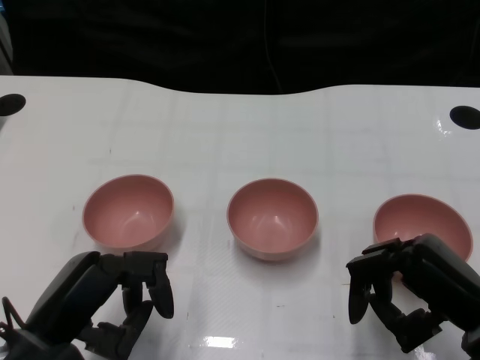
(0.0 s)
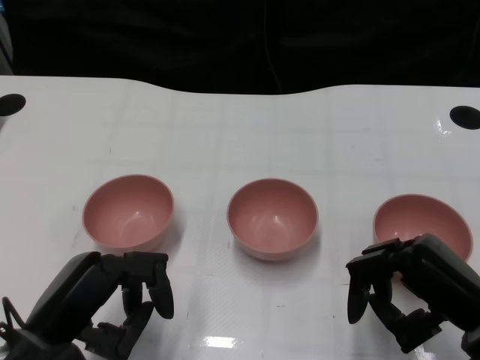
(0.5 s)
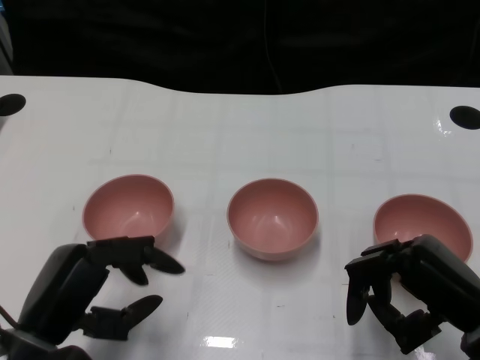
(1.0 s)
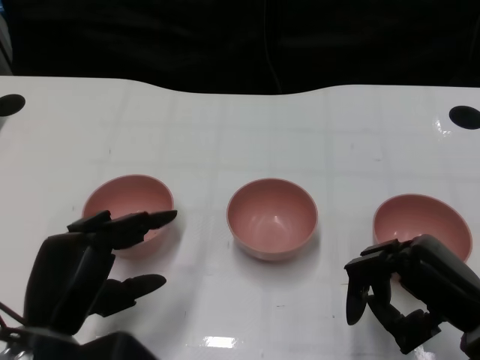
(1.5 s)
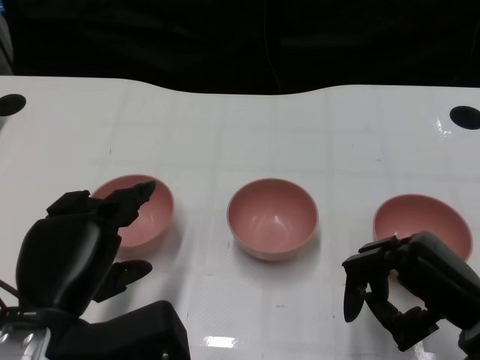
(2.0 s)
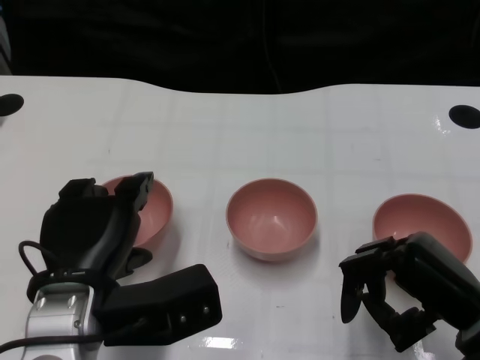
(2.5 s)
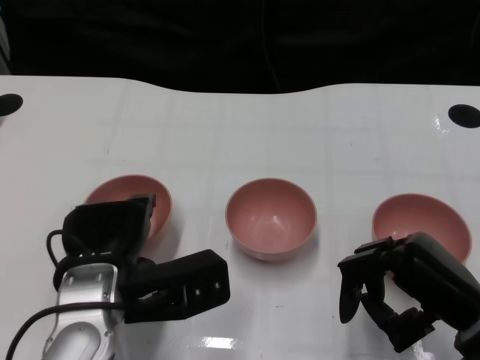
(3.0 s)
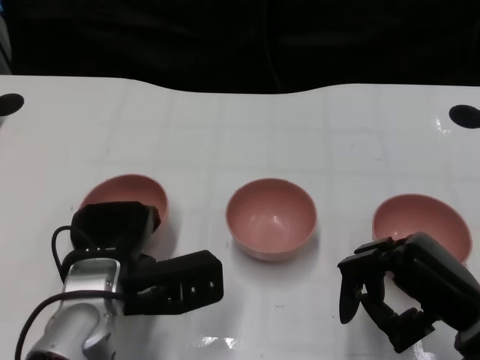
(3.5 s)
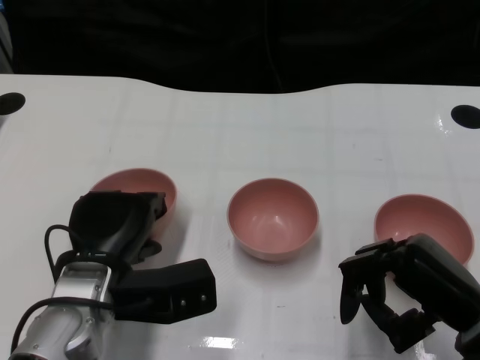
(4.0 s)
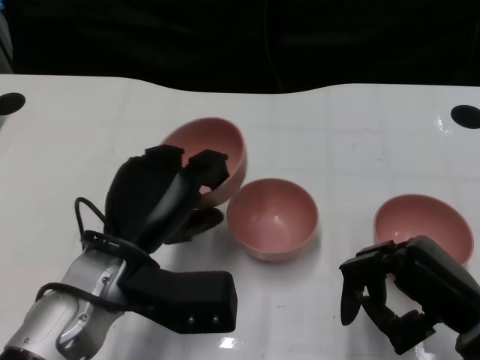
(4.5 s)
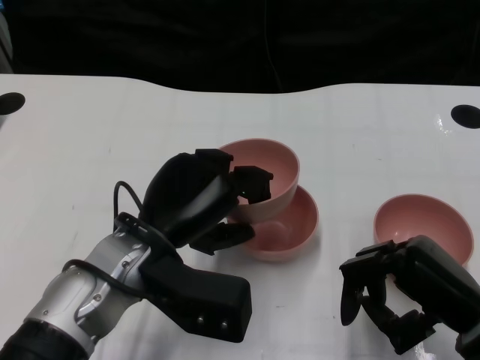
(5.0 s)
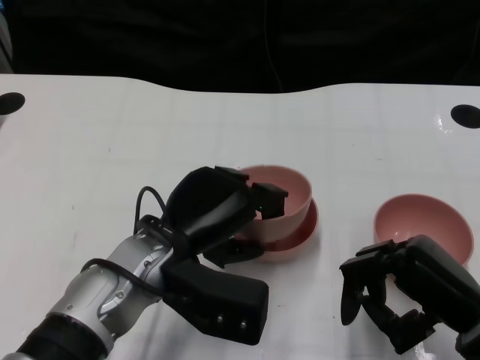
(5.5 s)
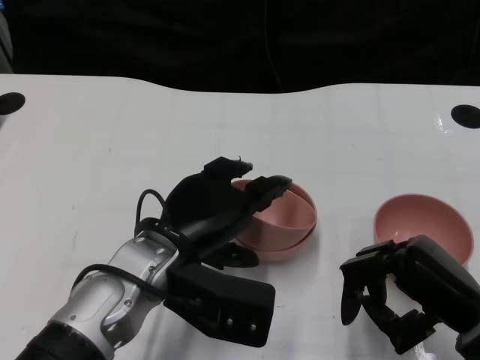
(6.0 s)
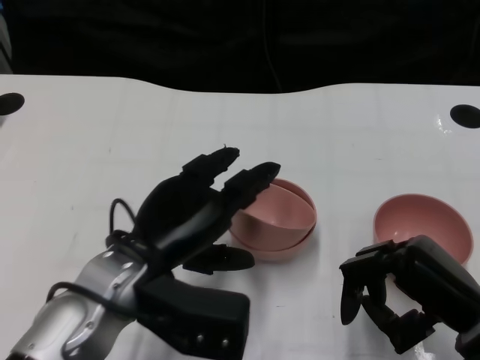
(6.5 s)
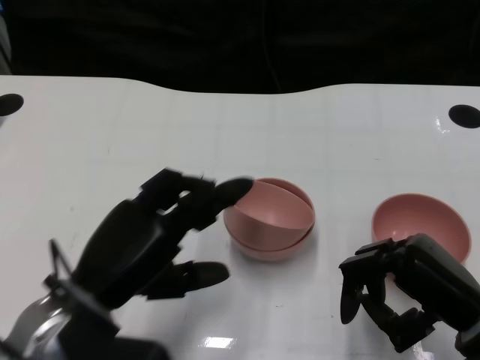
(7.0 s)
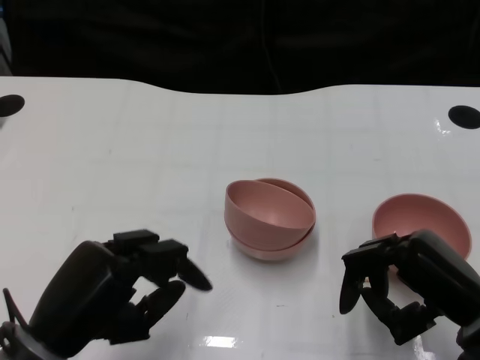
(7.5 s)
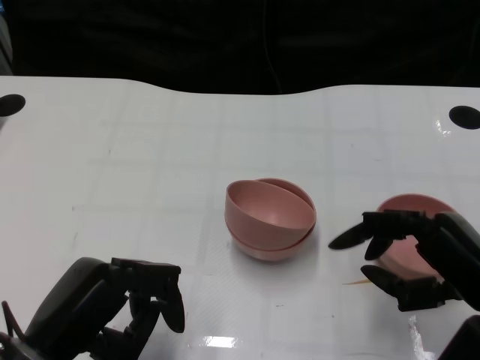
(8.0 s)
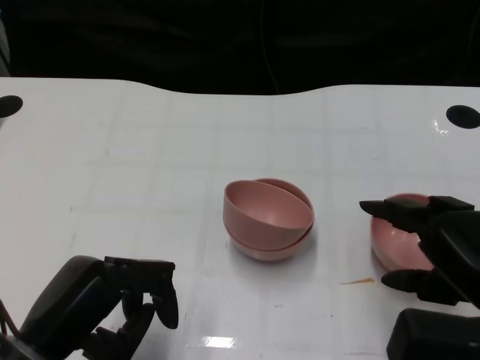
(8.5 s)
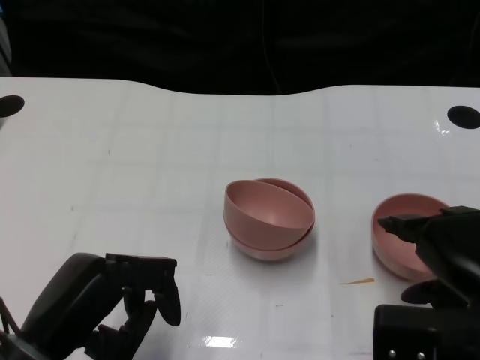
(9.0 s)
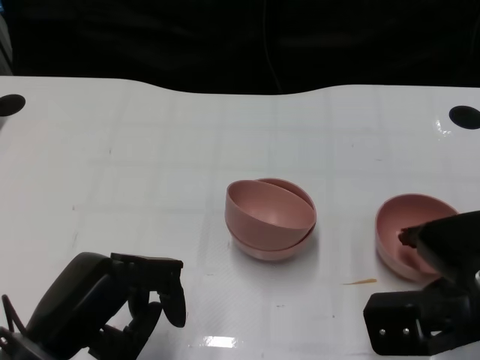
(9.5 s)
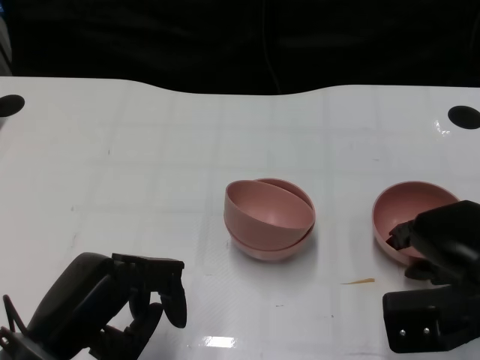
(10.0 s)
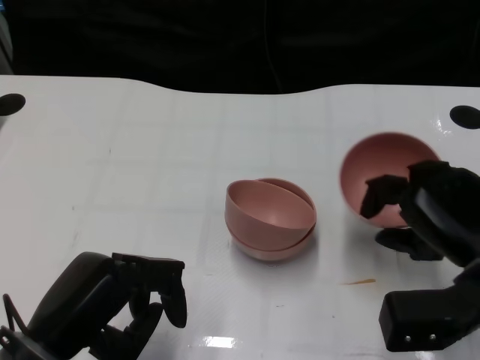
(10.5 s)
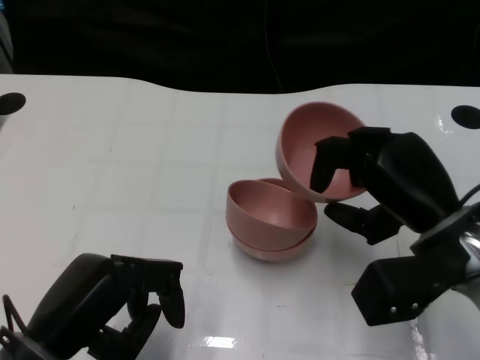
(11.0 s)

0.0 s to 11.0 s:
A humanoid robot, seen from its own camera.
Task of the whole recording: Pick up the bowl on one side of the table and place it on top of the middle bowl, then pick up the bowl on the other side of the table and place it on top of the middle bowls.
Step, 1.0 to 4.0 s: Grasp the bowl on the left with the left gripper.
Step, 4.5 to 6.5 s: Place the bowl on the left onto the bowl in the middle with left gripper.
Step, 7.0 to 10.0 s: Grasp the bowl on the right with the right gripper.
2.0 to 3.5 s: The left hand goes roughly 10 cm forward.
3.5 to 5.5 s: The left hand changes place by some 5 cm.
5.5 to 7.5 s: The left hand moves to the left and backward, some 15 cm.
7.5 to 9.0 s: The right hand is displaced upward by about 5 cm.
9.0 to 11.0 s: The right hand shifts some 10 cm forward.

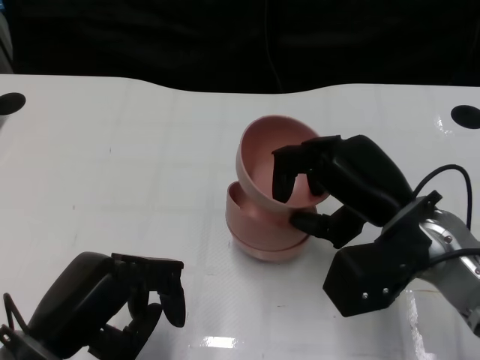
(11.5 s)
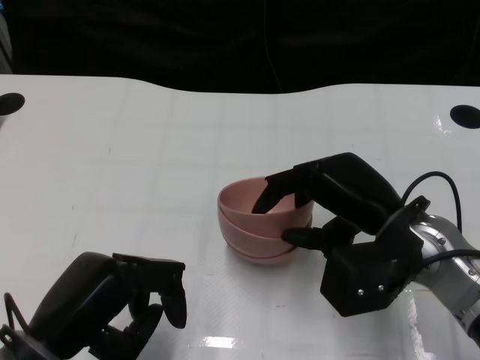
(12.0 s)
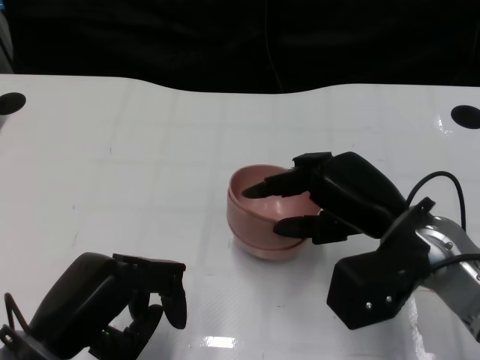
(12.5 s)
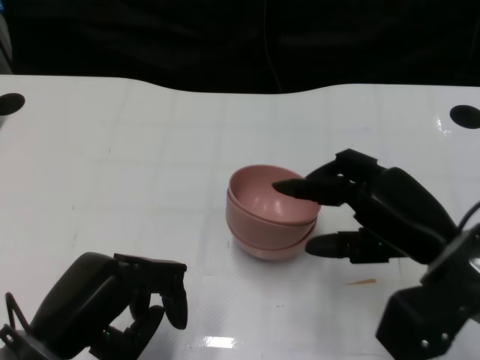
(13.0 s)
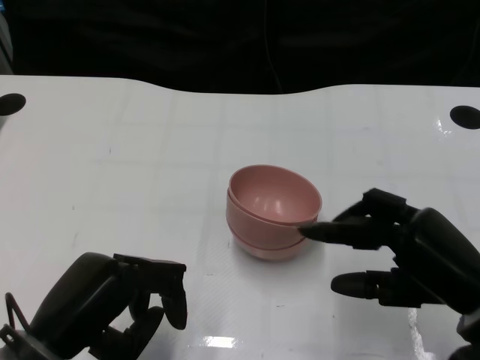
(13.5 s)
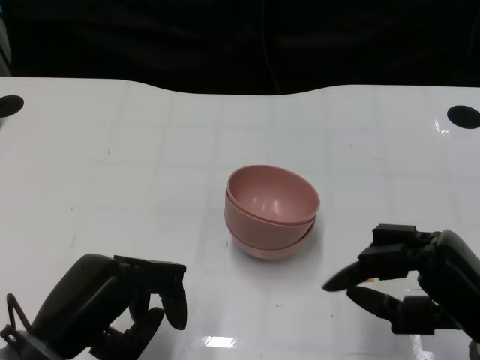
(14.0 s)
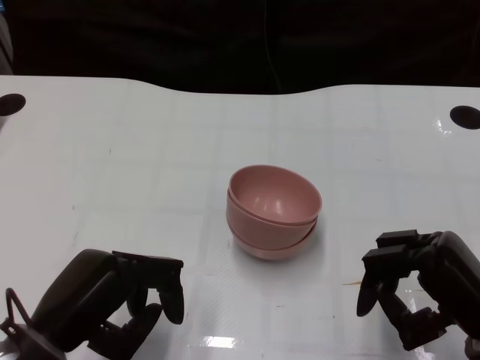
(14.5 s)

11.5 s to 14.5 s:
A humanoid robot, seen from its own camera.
Task of the whole recording: Pick up the bowl on one side of the table and place it on top of the middle bowl, then pick up the bowl on the other side of the table and place it on top of the middle bowls.
11.5 to 13.0 s: The hands make only small movements.
13.0 to 14.5 s: The right hand travels backward by roughly 5 cm.

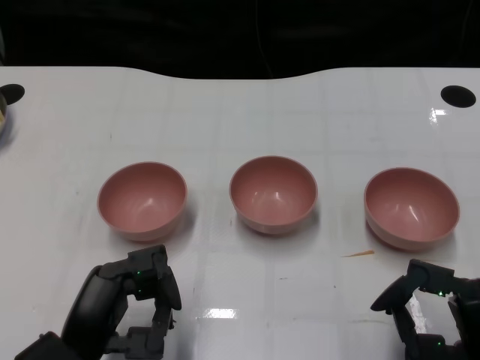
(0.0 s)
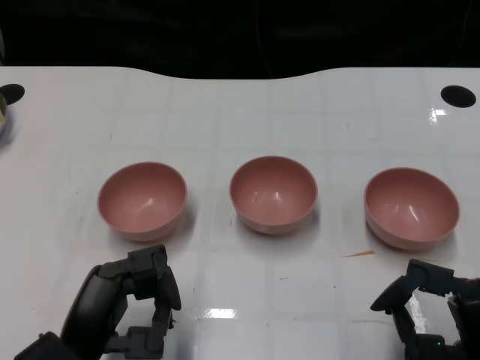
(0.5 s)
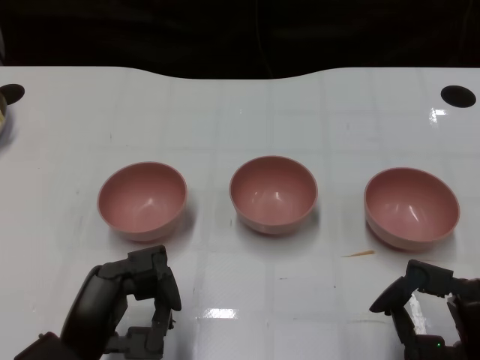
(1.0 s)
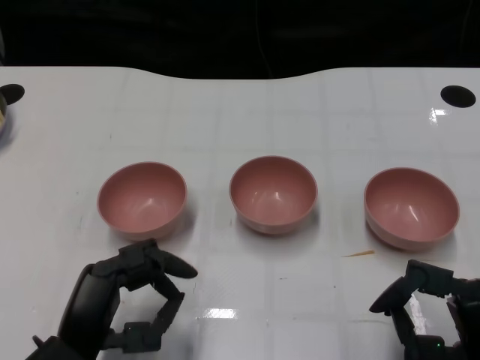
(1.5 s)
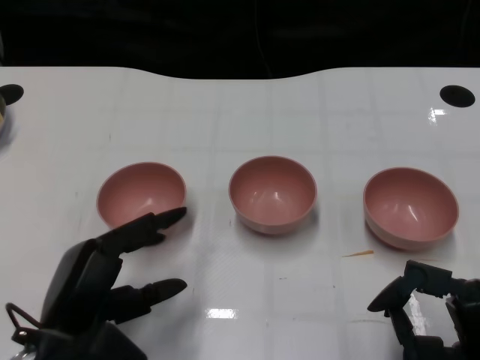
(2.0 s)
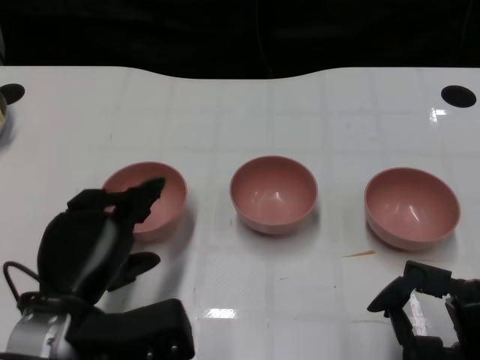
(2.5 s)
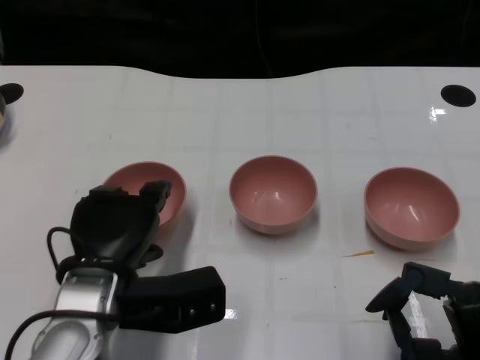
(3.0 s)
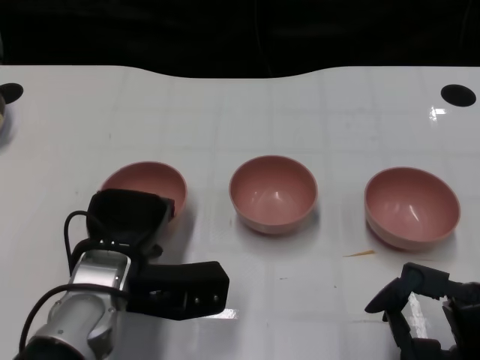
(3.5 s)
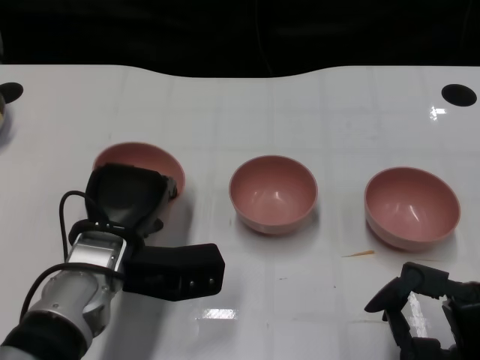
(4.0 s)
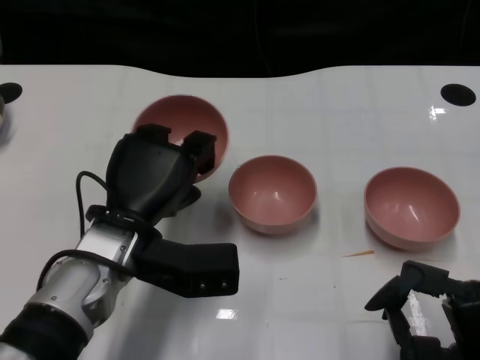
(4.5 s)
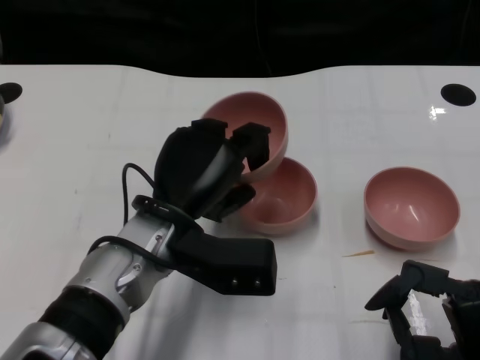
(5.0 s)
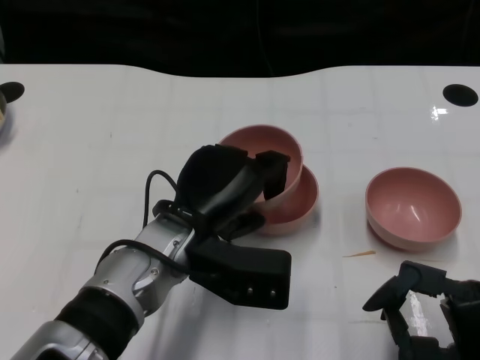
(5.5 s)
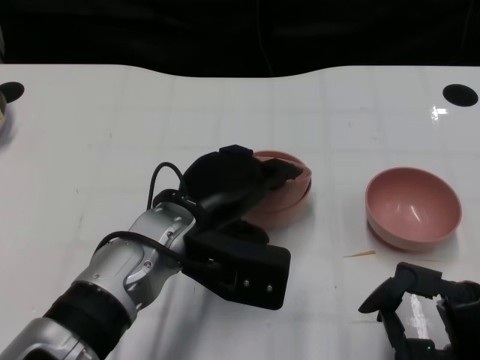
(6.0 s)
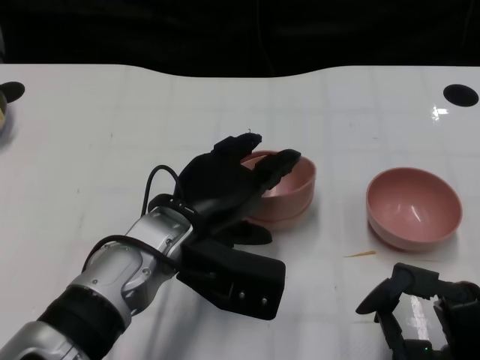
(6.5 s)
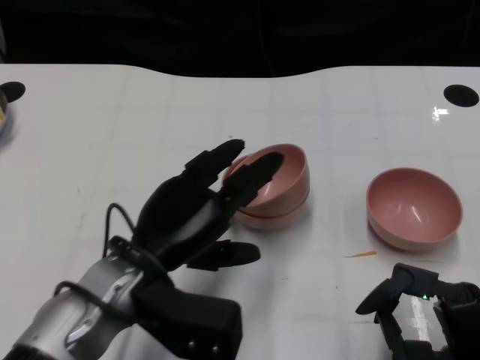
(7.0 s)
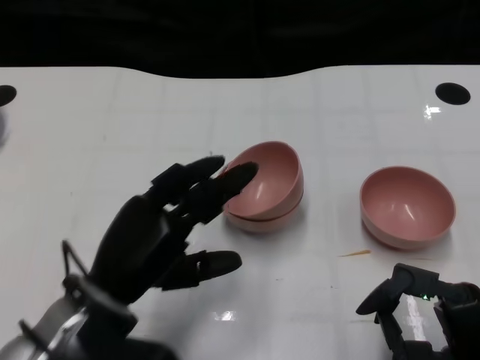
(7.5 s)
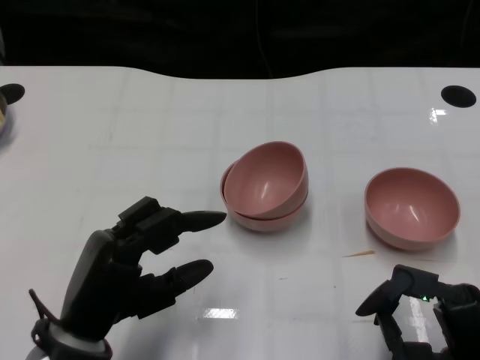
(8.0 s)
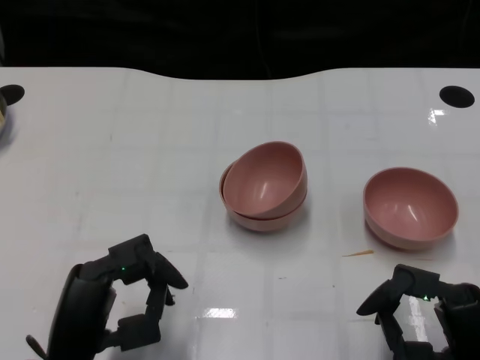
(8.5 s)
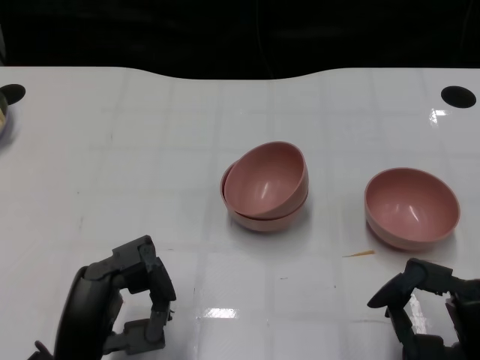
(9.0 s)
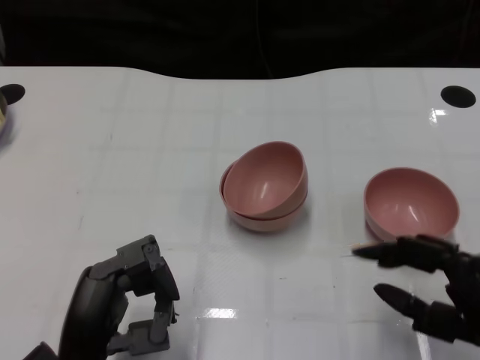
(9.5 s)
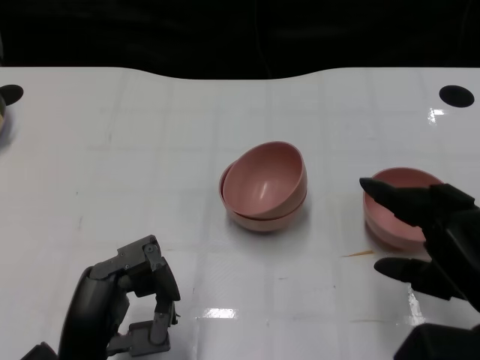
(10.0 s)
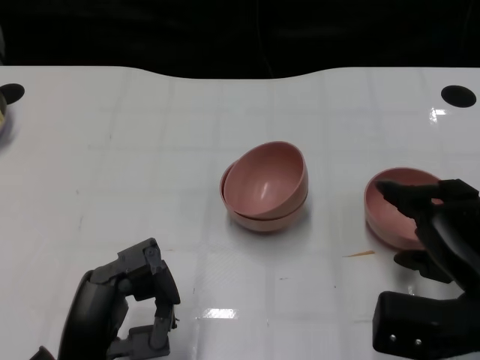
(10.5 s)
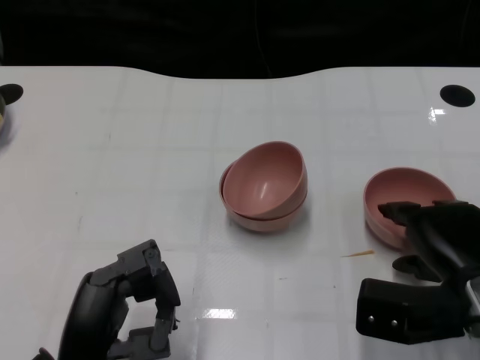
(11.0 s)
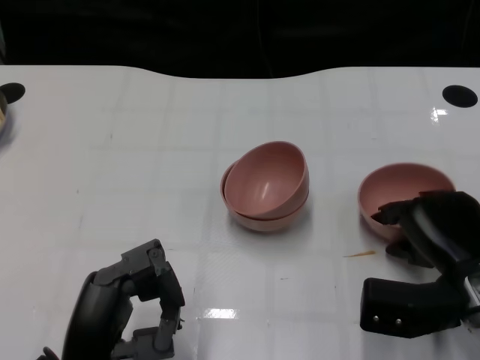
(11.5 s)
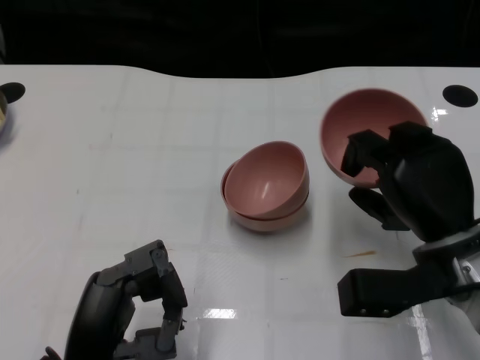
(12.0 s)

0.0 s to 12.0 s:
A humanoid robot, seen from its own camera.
Task of the whole recording: Pick up the bowl on one side of the table and place it on top of the middle bowl, then pick up the bowl on the other side of the table and place it on top of the middle bowls.
Step, 1.5 to 3.5 s: Grasp the bowl on the left with the left gripper.
Step, 4.0 to 7.0 s: Place the bowl on the left onto the bowl in the middle with left gripper.
Step, 7.5 to 11.5 s: Grasp the bowl on the right with the right gripper.
2.0 to 4.0 s: The left hand moves forward, some 10 cm.
4.0 to 6.0 s: The left hand shifts approximately 5 cm to the right.
6.0 to 8.0 s: The left hand heads backward and to the left, covering roughly 15 cm.
8.0 to 10.0 s: The right hand heads upward, covering roughly 5 cm.
10.0 to 12.0 s: The right hand heads forward, covering about 10 cm.
